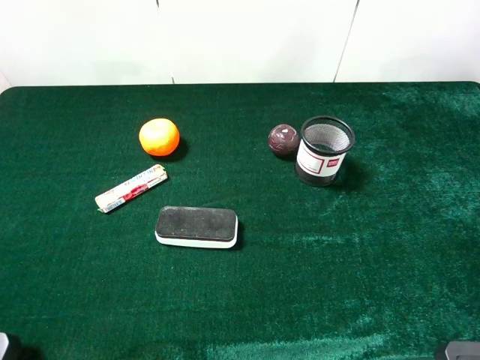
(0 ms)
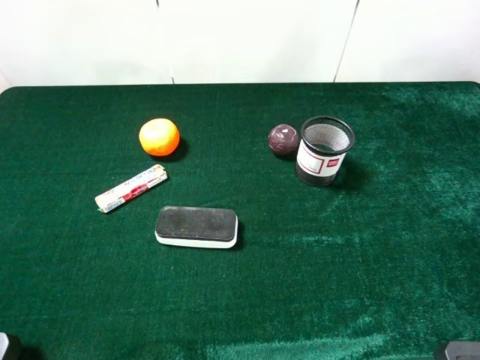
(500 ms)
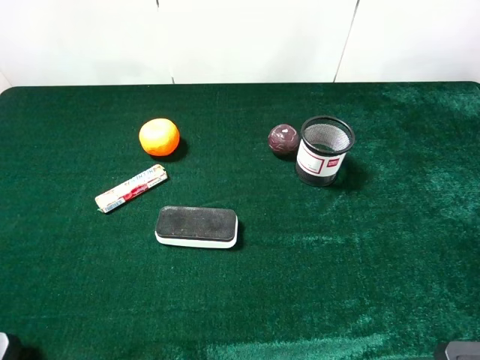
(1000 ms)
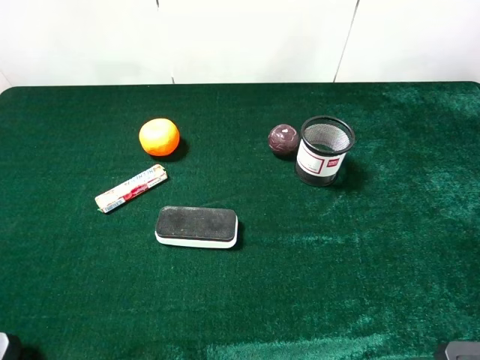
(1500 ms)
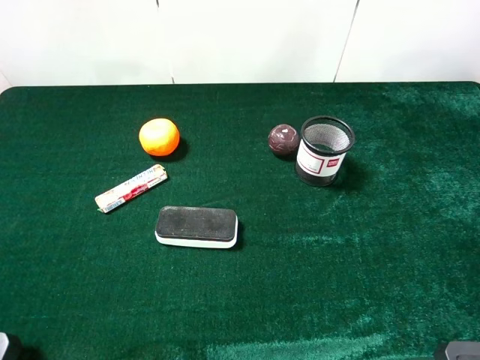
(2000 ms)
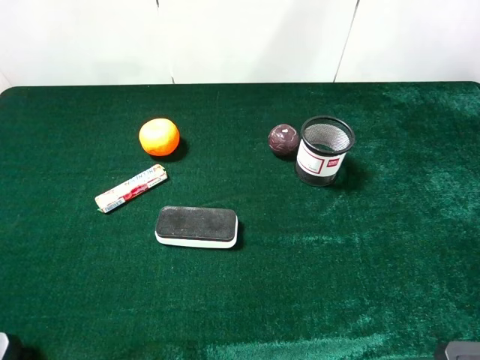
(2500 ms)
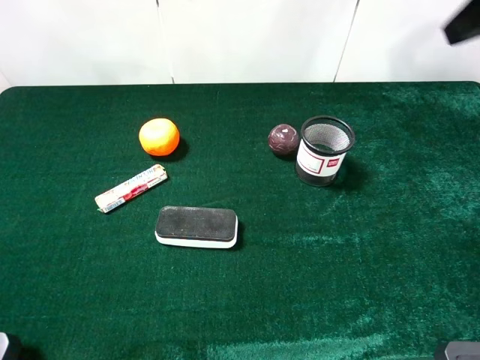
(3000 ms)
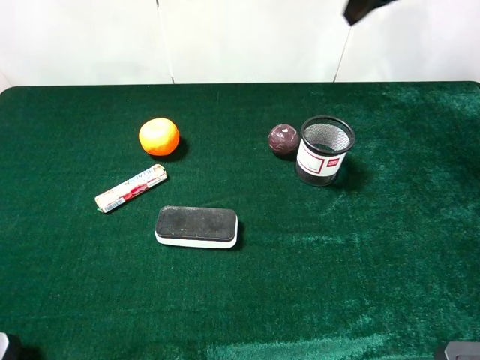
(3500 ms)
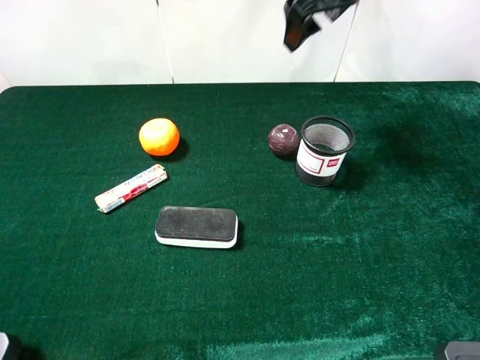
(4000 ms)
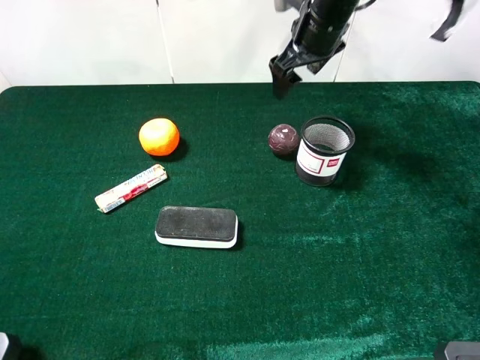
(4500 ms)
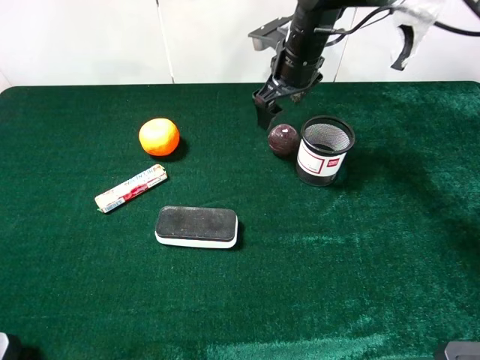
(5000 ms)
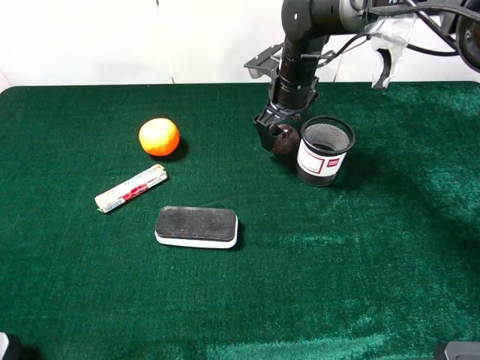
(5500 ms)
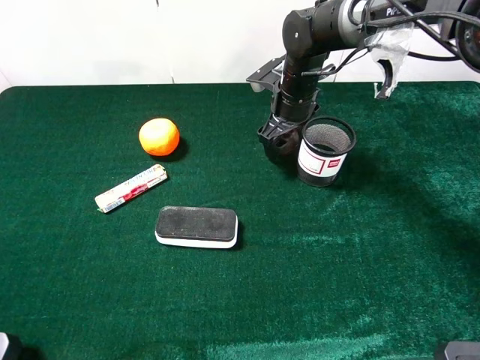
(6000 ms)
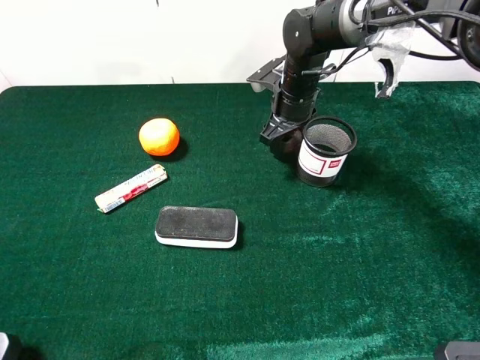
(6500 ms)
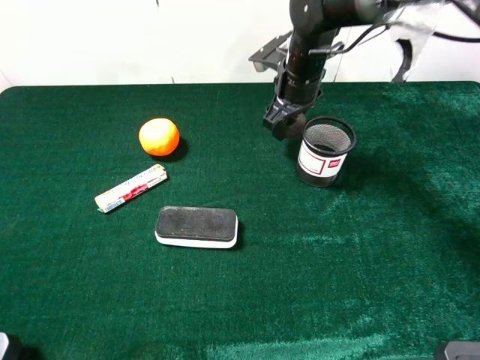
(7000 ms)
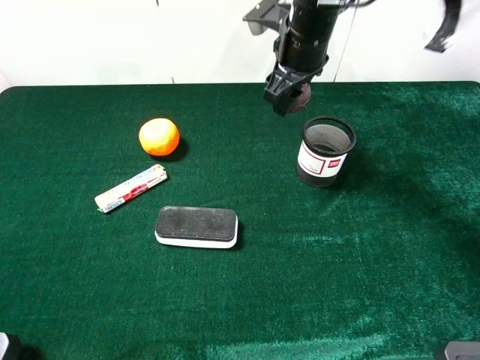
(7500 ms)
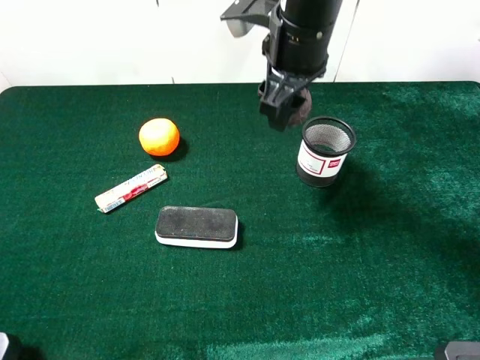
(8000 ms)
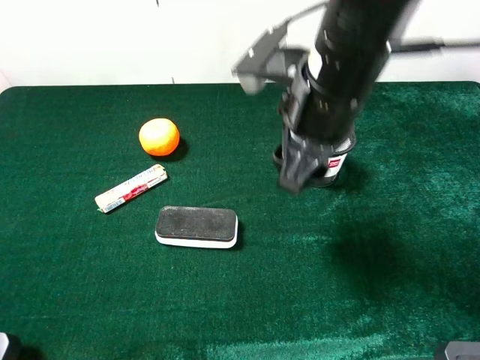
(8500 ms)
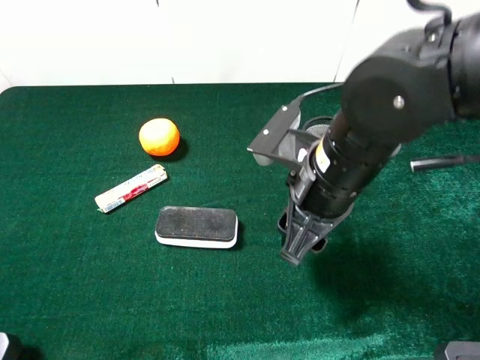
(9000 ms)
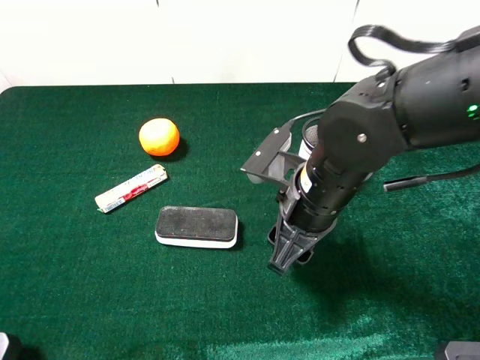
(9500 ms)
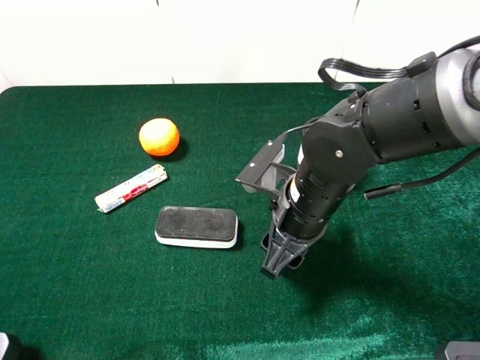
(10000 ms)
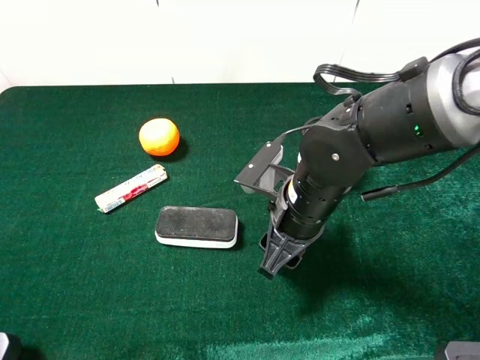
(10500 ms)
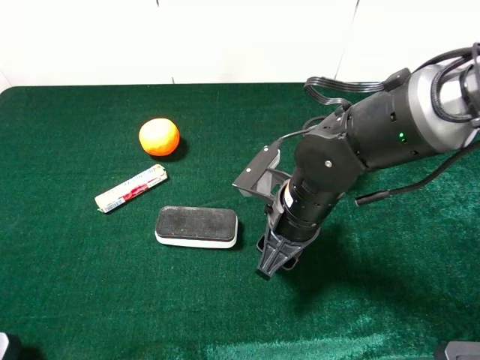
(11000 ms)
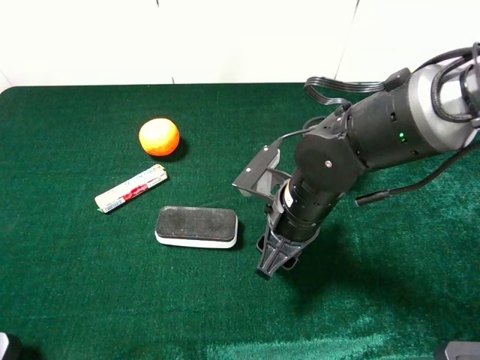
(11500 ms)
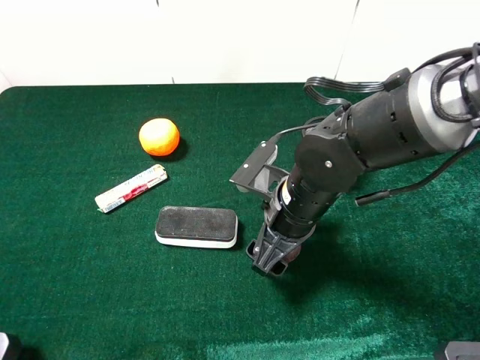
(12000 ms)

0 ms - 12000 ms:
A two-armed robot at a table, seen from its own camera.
Task of the whole recording: the gripper move the object.
Step, 0 ms - 6000 ms: Grasp the mangosteen with the right gripper.
Step, 6500 ms - 12000 ms: Place the mangosteen on the table with the right gripper.
0 ms - 2000 ms: Neither gripper changes place.
2000 ms - 4000 ms: The right gripper travels forward and to the left by about 40 cm.
4000 ms - 6000 ms: The right gripper goes roughly 20 cm downward.
6000 ms - 8000 ms: The right gripper is displaced upward and backward by approximately 20 cm, and closes up.
8000 ms - 10000 ms: The right gripper shifts about 20 cm downward and backward.
10000 ms - 12000 ms: The right gripper opens its fingers.

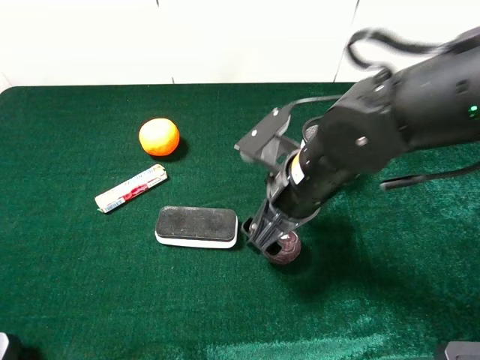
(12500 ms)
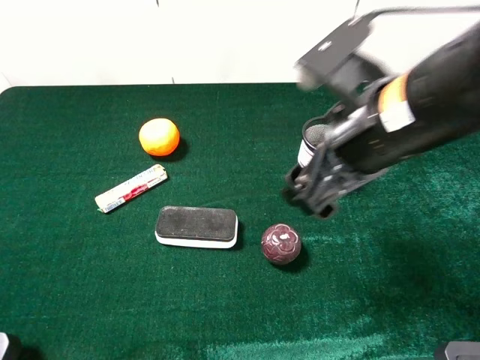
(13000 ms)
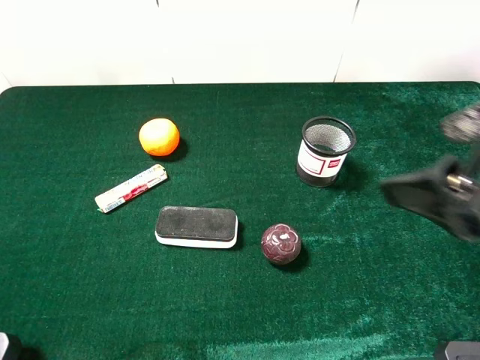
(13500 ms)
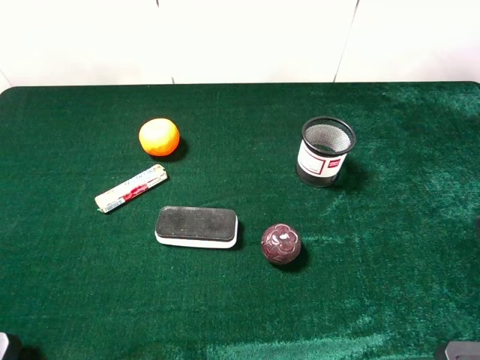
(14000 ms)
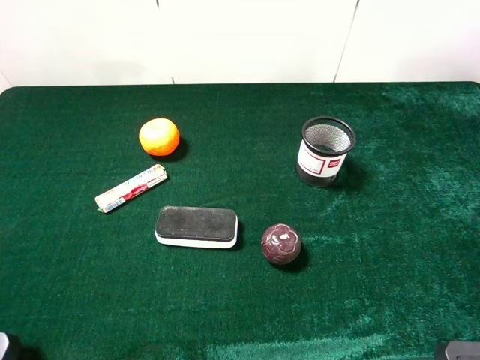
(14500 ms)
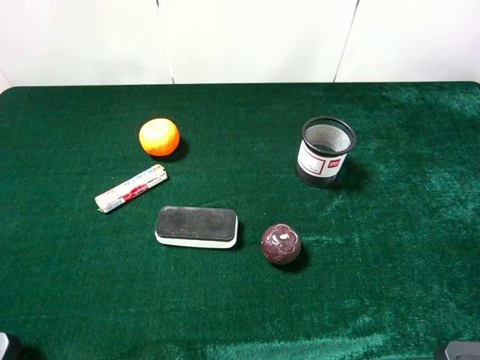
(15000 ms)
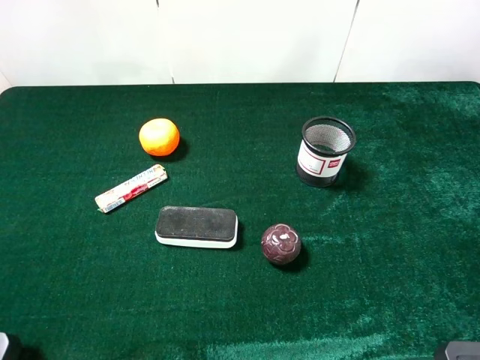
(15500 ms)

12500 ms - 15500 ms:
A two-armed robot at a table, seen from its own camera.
Task of the whole recording: the gripper move the object.
12500 ms - 14000 ms: The right gripper goes about 30 cm to the right, backward and upward.

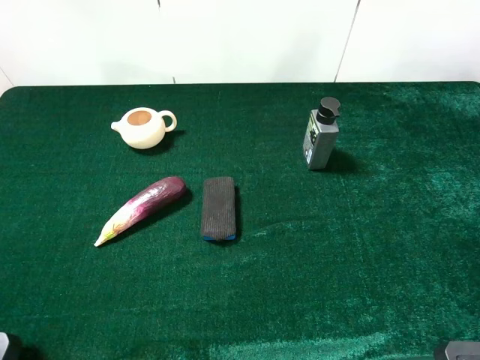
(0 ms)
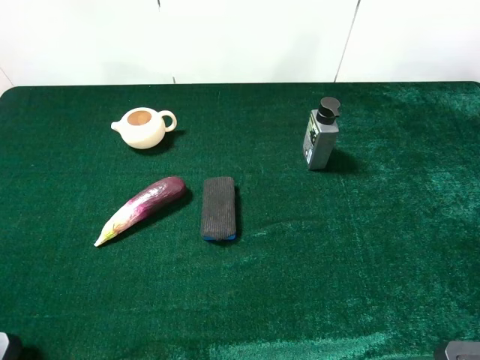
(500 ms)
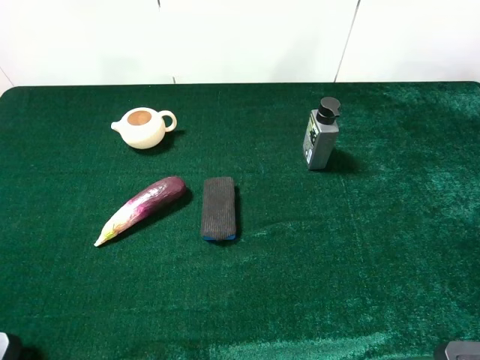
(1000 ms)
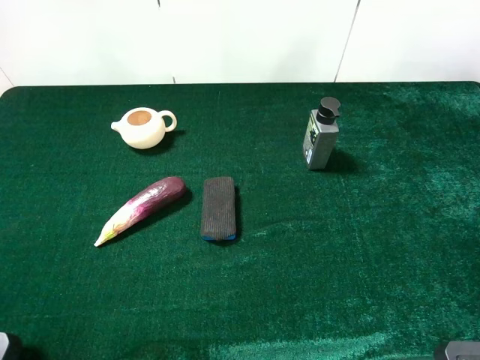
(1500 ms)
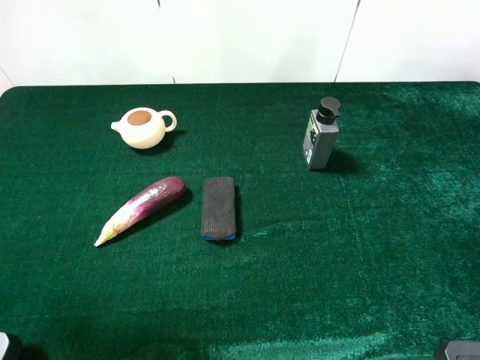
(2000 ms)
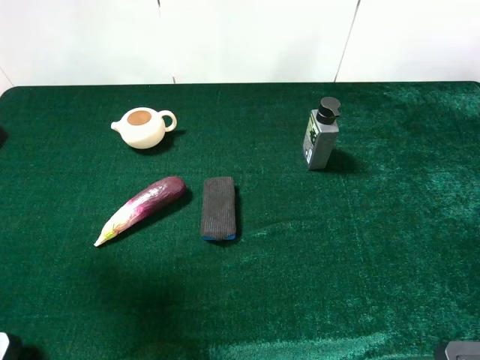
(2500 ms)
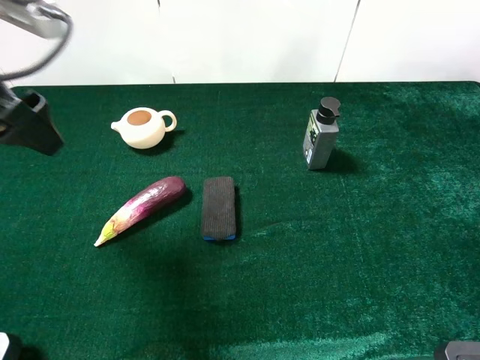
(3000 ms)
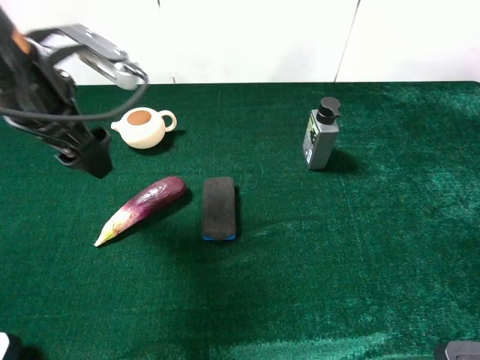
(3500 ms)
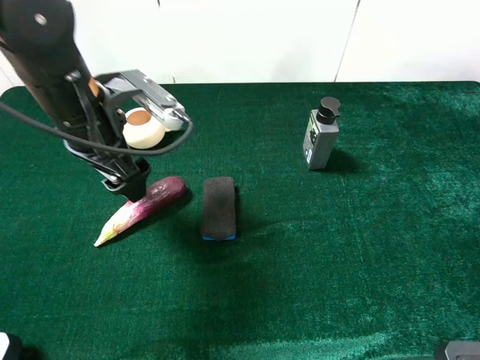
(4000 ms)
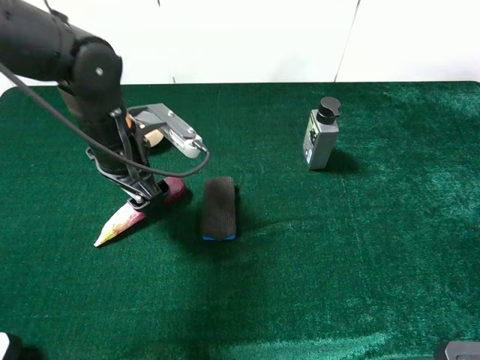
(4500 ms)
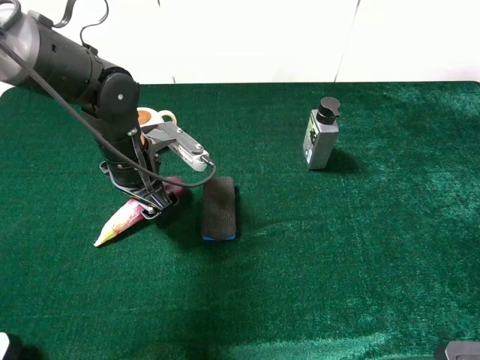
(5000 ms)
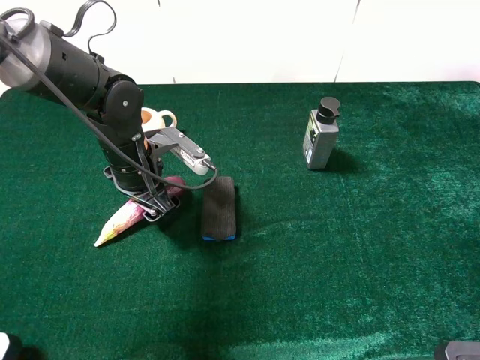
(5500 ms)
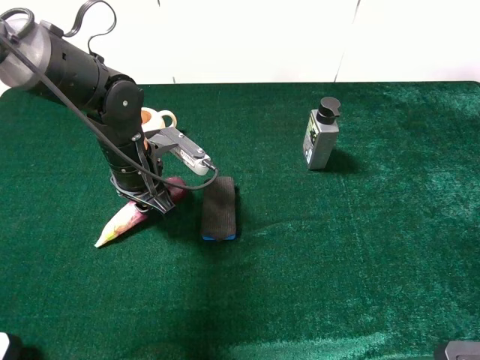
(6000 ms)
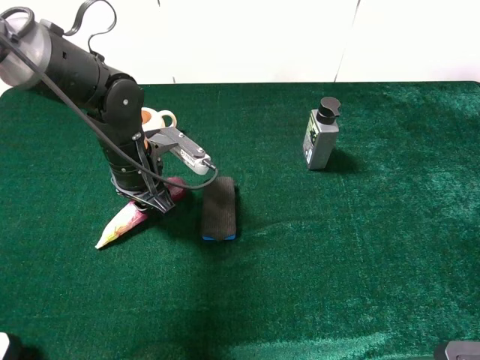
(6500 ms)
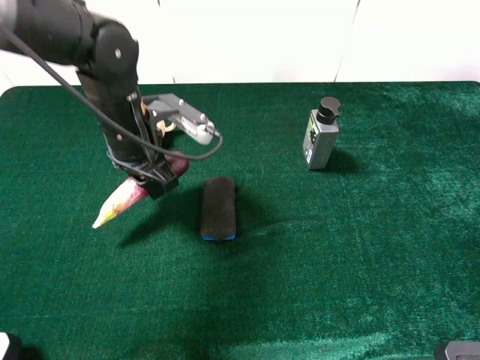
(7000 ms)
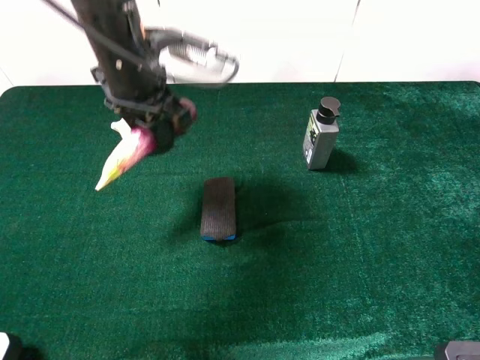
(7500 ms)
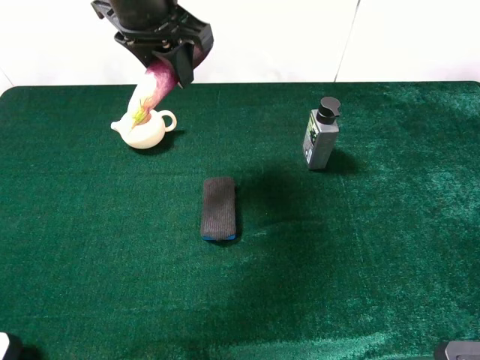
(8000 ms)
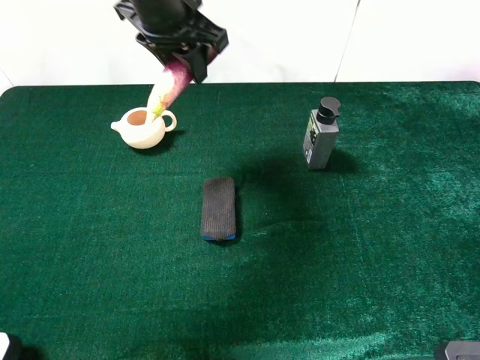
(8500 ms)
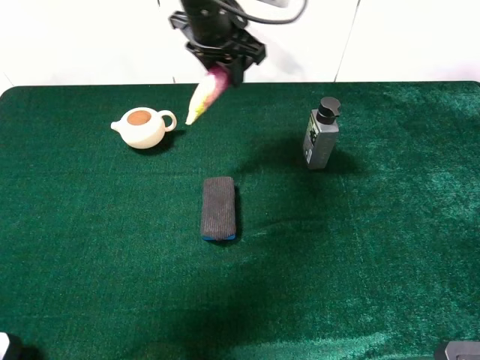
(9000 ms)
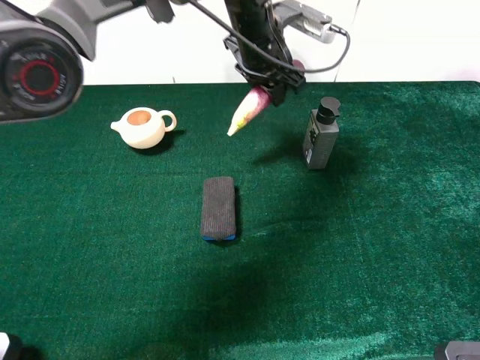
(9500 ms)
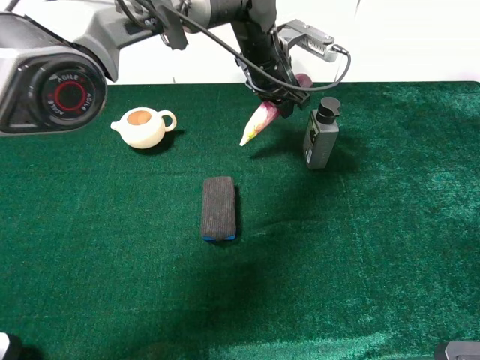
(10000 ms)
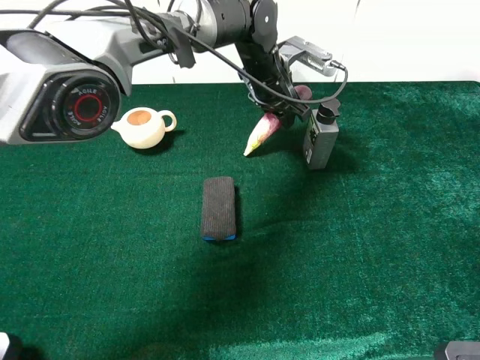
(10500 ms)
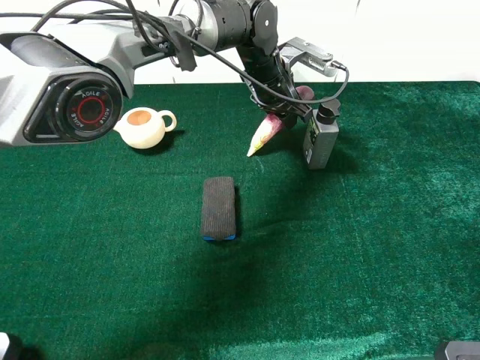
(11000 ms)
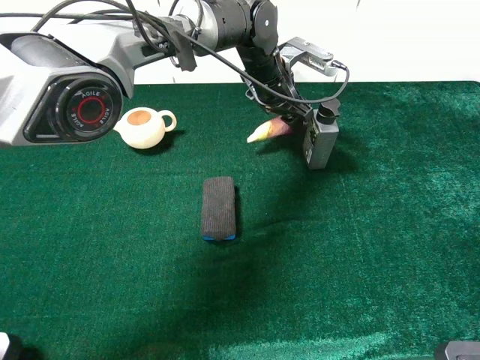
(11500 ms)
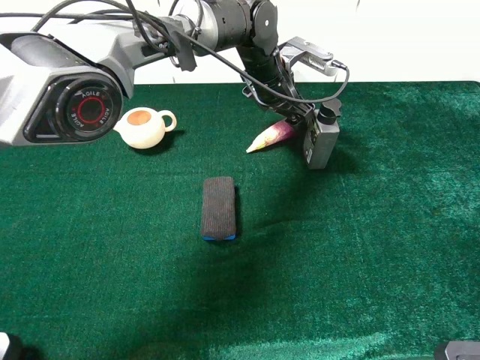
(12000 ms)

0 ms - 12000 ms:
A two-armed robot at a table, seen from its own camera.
Task of the whole recording: the gripper move the object.
Step, 0 ms - 6000 ms: Grasp the eggplant with the left gripper.
Step, 6500 ms - 11500 ms: Place the eggplant on the table with the left gripper.
0 ms - 2000 ms: The left gripper heads forward and upward, covering some 10 cm.
2000 ms - 4000 ms: The left gripper is displaced forward, downward and to the right by roughly 25 cm.
4000 ms - 6000 ms: The left gripper travels downward by approximately 10 cm, and closes.
6000 ms - 8000 ms: The left gripper goes approximately 20 cm upward.
8000 ms - 10000 ms: The left gripper moves to the right, downward and forward, about 20 cm.
10000 ms - 12000 ms: The left gripper opens.
